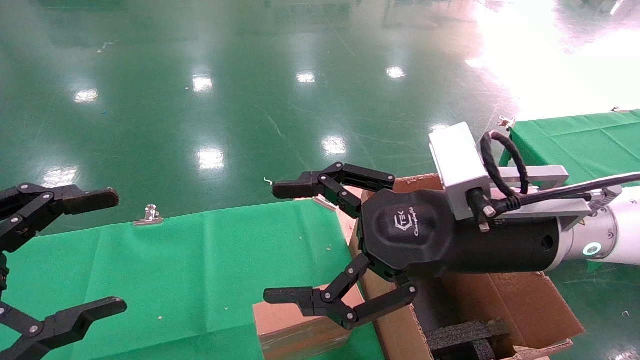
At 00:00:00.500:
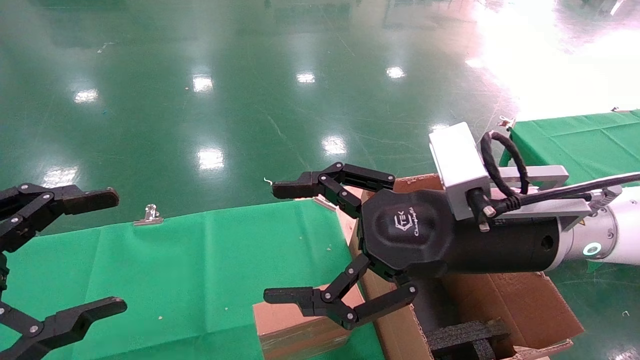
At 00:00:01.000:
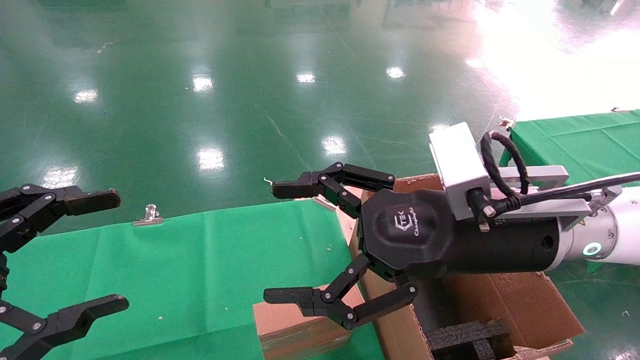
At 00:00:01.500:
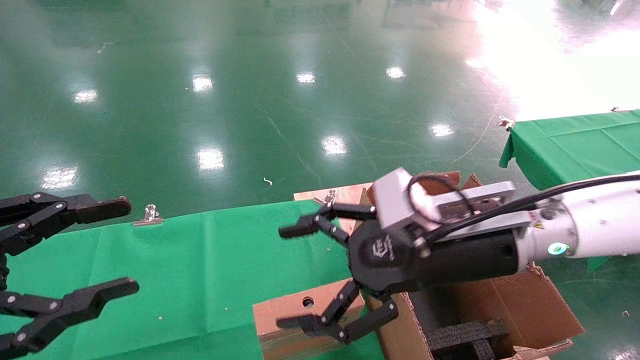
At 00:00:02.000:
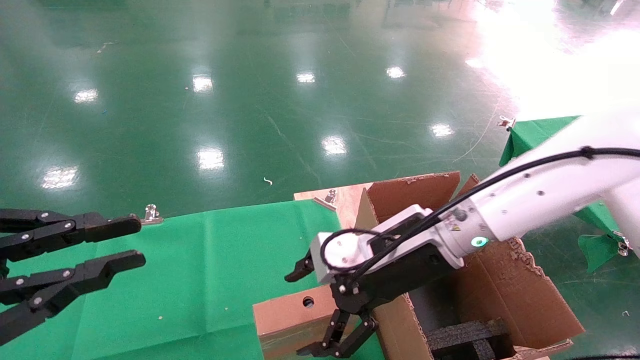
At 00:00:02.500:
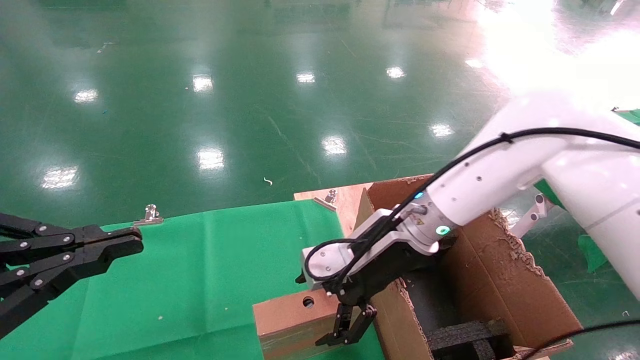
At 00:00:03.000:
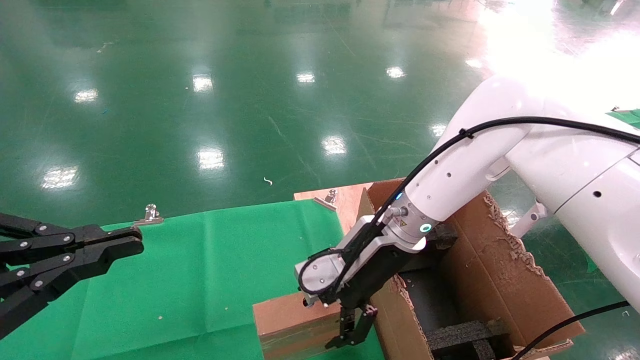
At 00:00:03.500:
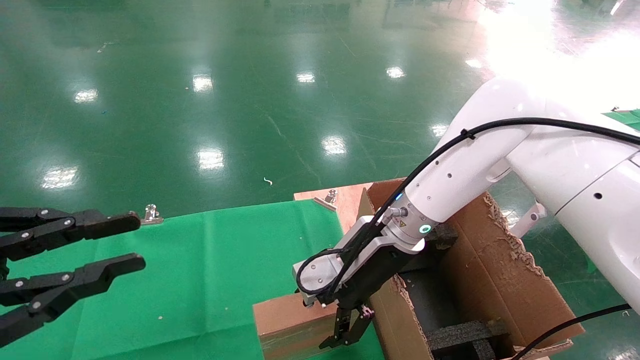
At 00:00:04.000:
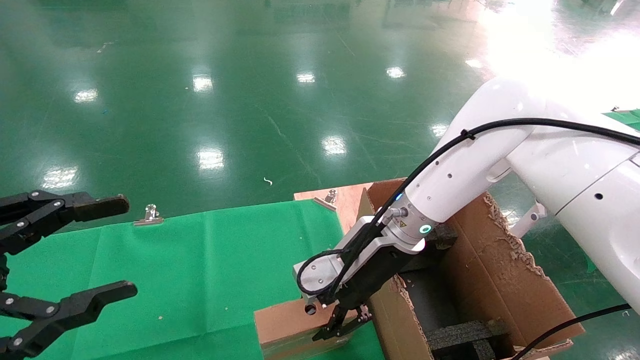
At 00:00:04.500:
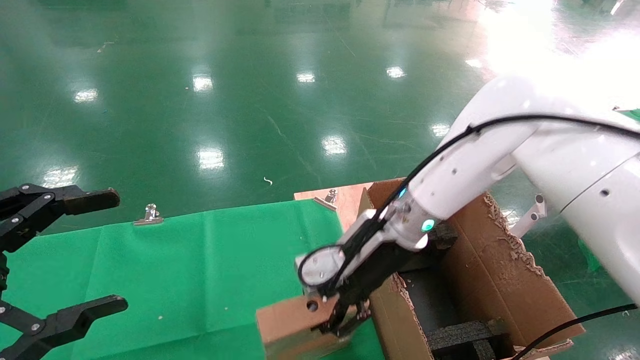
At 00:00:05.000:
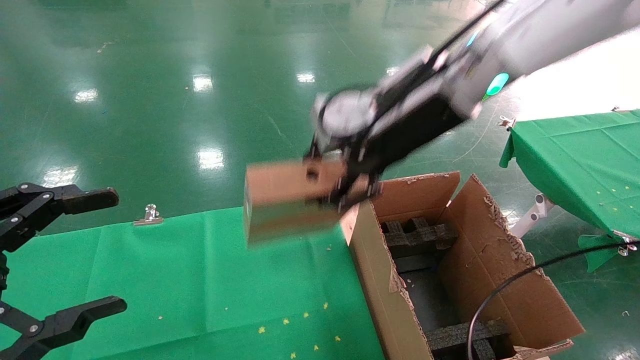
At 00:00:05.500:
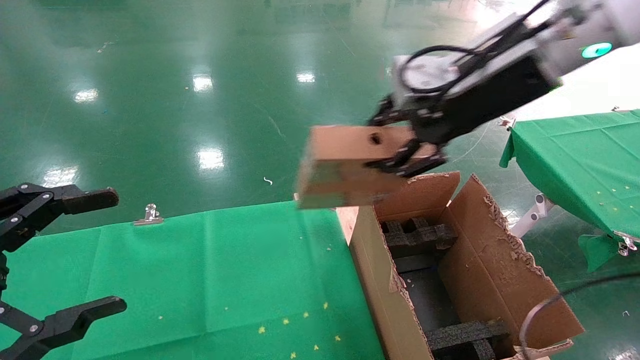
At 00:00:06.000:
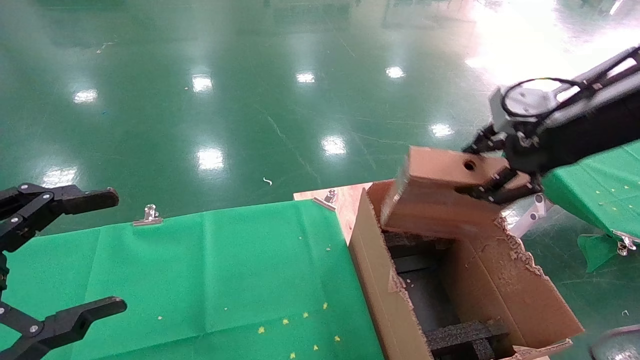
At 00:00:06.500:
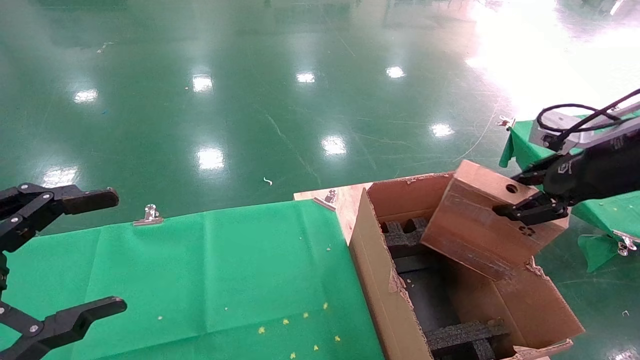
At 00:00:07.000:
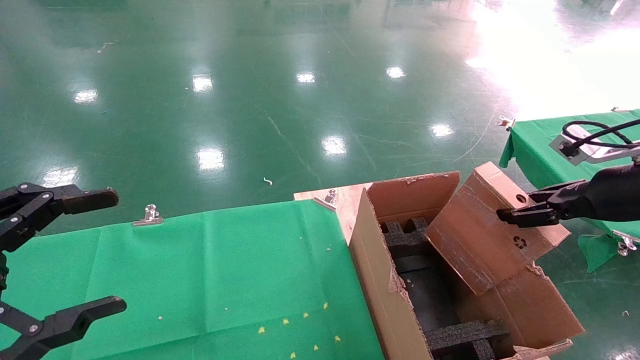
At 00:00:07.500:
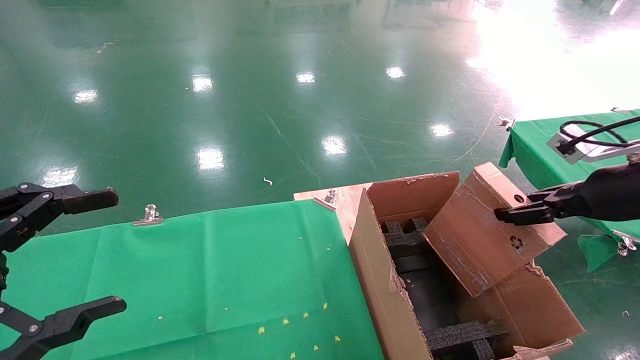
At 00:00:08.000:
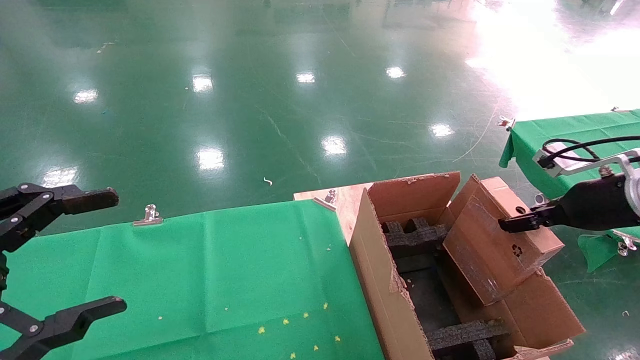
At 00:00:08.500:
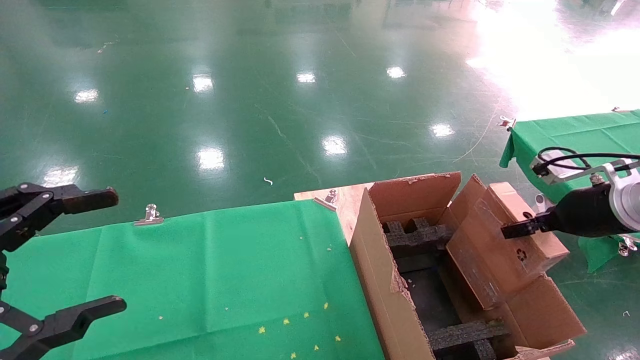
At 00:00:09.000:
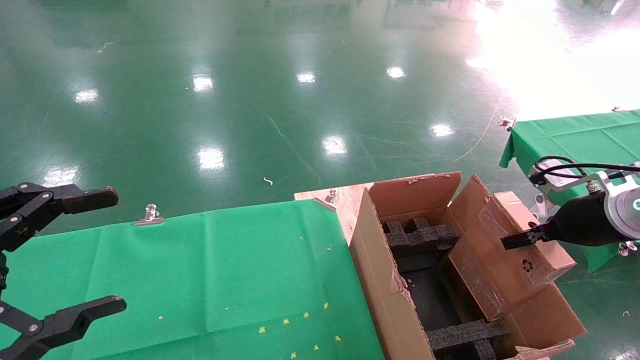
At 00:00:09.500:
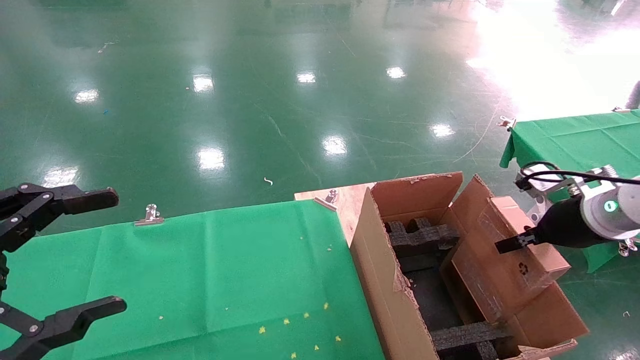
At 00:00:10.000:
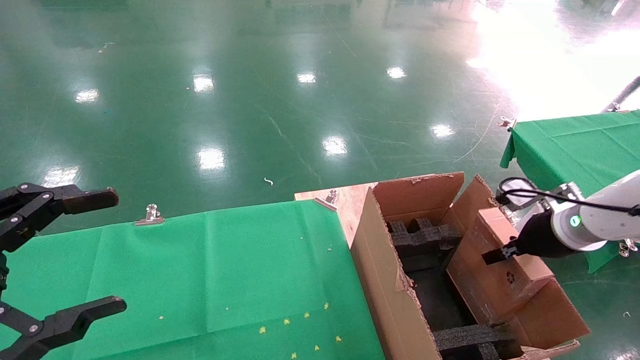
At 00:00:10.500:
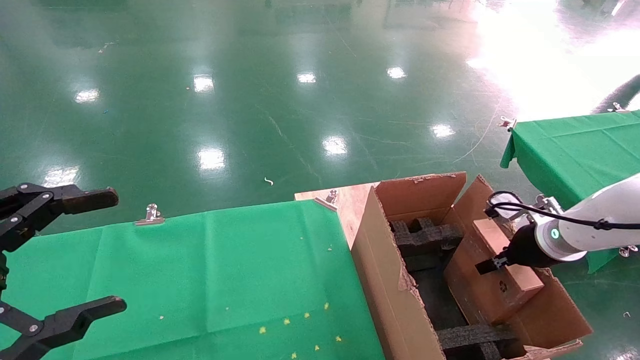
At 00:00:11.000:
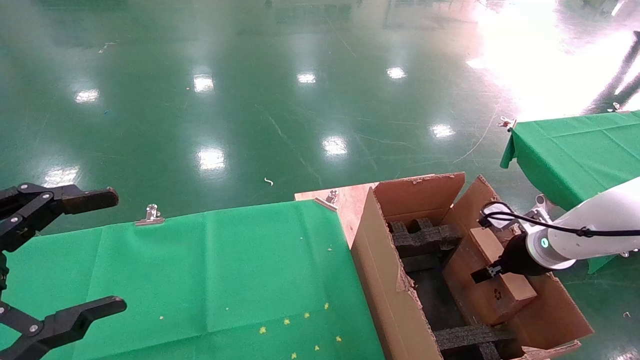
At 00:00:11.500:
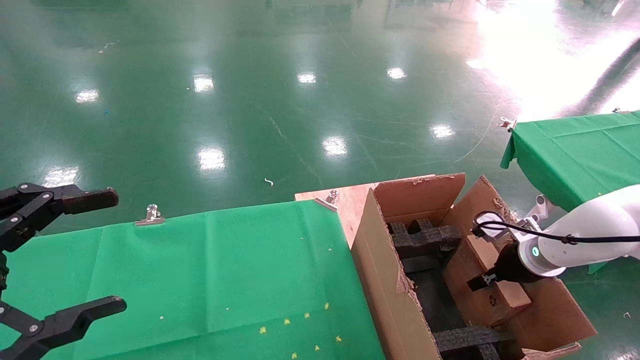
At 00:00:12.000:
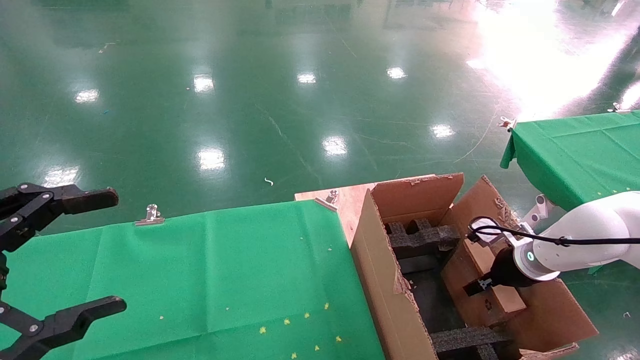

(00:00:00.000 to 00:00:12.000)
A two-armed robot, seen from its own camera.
Task of the whole recording: using a robotic arm to pick up a cardboard box and palace it the carton.
Step, 00:00:01.500 - 00:00:04.500: Pick up the mouse and the power cord paper box.
00:00:00.000 - 00:00:02.000: The left gripper closes its fingers, while the right gripper travels forward and downward by some 10 cm.
00:00:02.000 - 00:00:04.000: The right gripper moves some 5 cm, and closes its fingers.
00:00:04.000 - 00:00:06.000: The left gripper opens its fingers; the right gripper is displaced to the right, upward and backward by some 30 cm, and closes its fingers.
00:00:06.000 - 00:00:08.000: The right gripper moves downward and to the right, some 20 cm.
00:00:08.000 - 00:00:10.000: The right gripper heads downward, covering some 5 cm.
00:00:10.000 - 00:00:12.000: The right gripper is displaced downward by approximately 10 cm.

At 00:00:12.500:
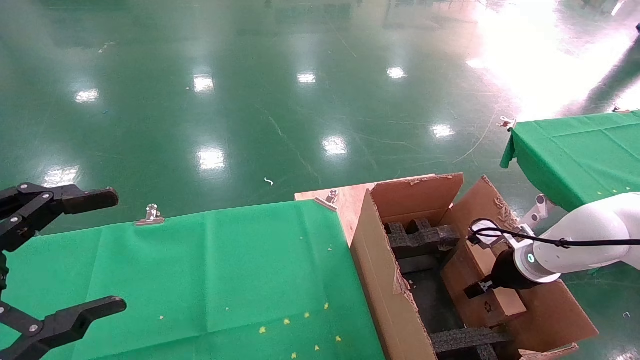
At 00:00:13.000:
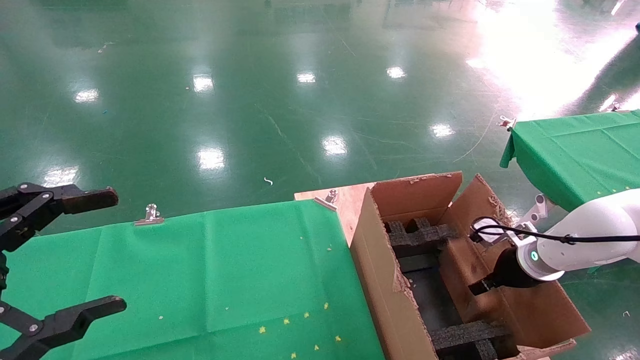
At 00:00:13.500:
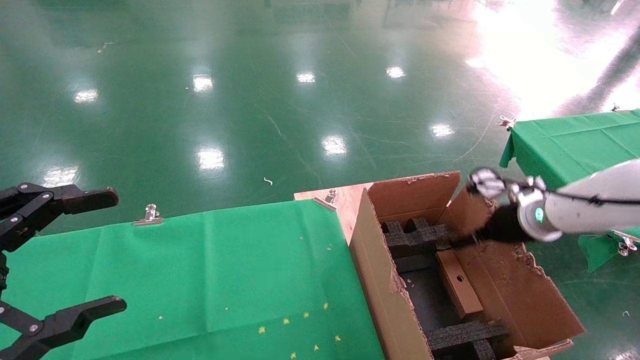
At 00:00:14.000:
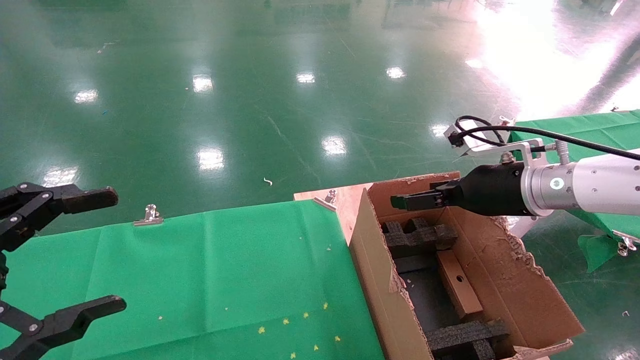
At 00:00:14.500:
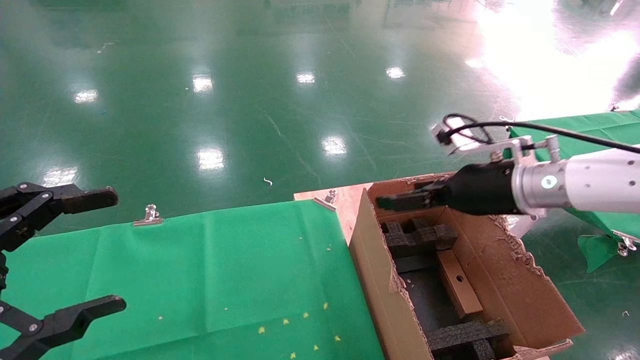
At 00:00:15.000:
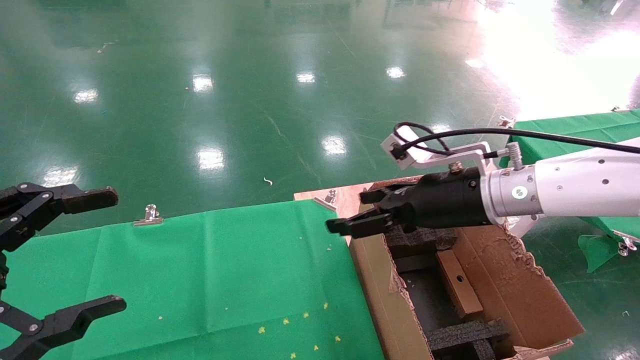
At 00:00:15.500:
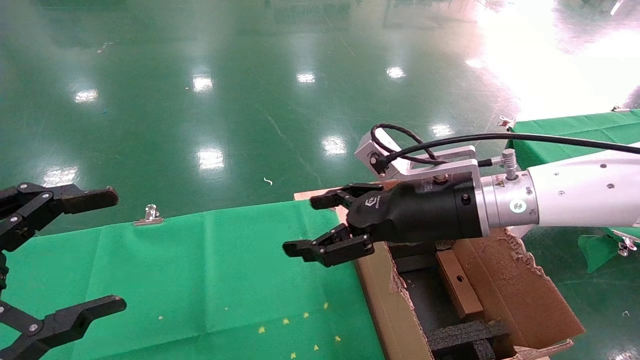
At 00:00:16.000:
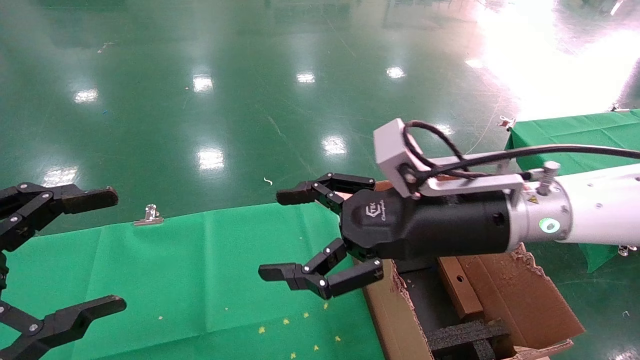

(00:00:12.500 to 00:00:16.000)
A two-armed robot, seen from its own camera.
Task of the whole recording: using a robotic arm to pick up a cardboard box and palace it the carton.
00:00:12.500 - 00:00:14.500: The right gripper goes about 20 cm upward and to the left, and opens.
00:00:14.500 - 00:00:16.000: The right gripper moves to the left and backward, roughly 15 cm.
